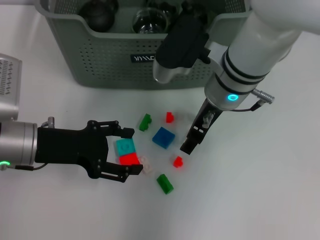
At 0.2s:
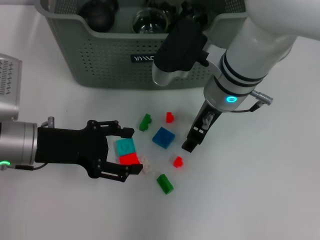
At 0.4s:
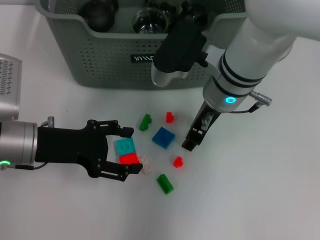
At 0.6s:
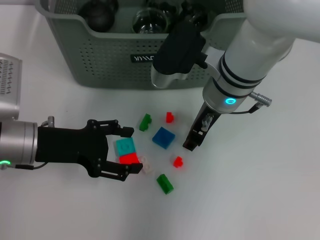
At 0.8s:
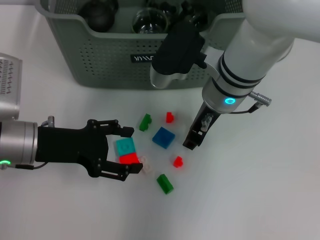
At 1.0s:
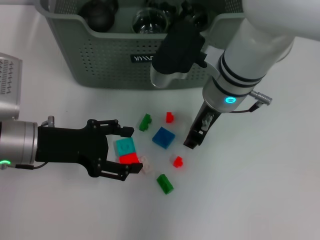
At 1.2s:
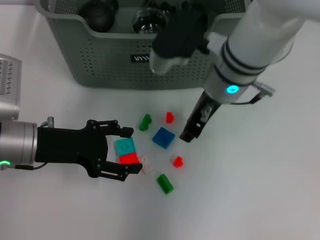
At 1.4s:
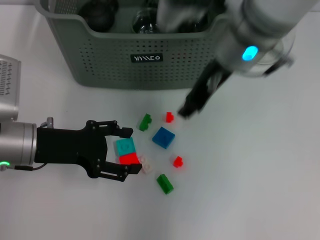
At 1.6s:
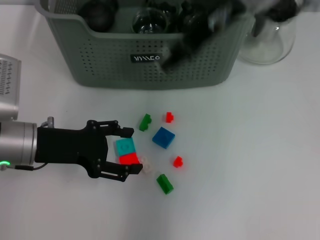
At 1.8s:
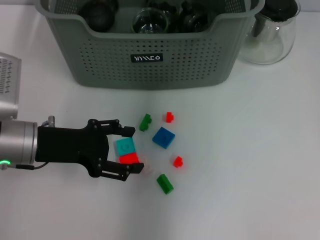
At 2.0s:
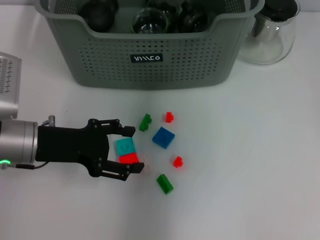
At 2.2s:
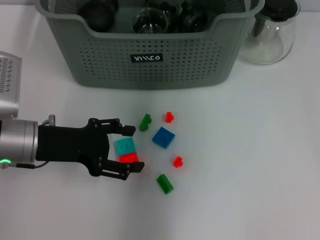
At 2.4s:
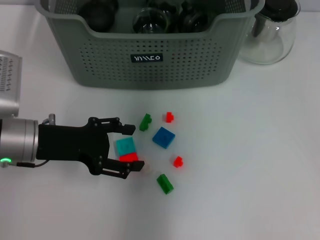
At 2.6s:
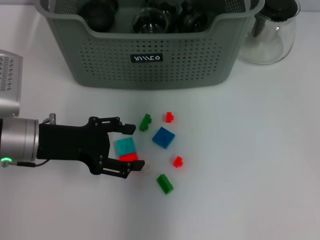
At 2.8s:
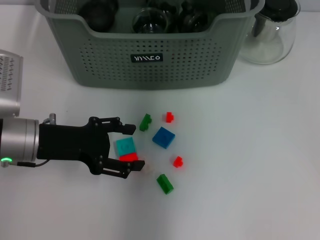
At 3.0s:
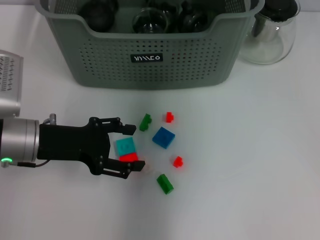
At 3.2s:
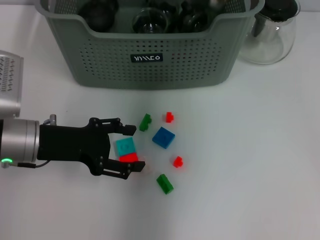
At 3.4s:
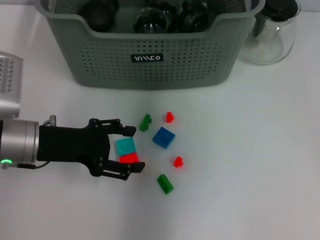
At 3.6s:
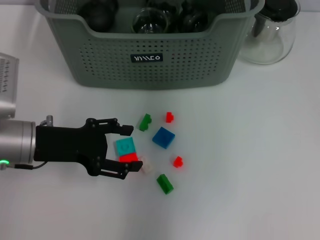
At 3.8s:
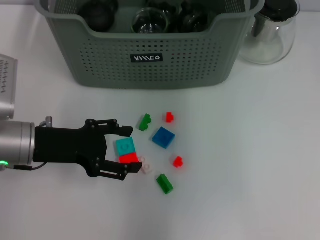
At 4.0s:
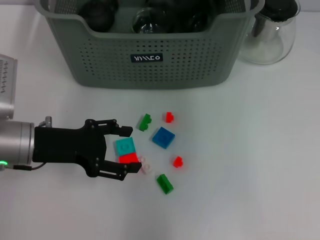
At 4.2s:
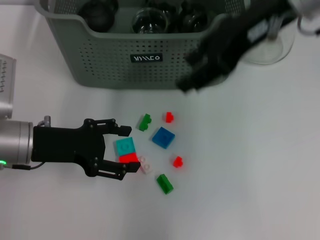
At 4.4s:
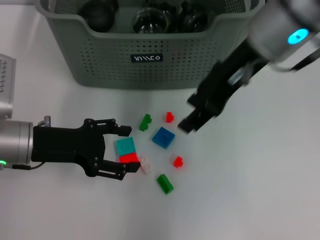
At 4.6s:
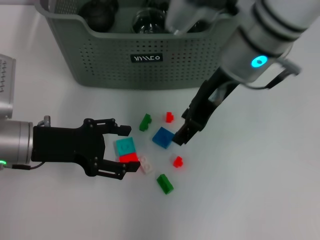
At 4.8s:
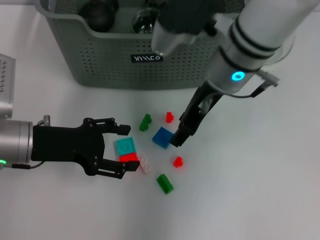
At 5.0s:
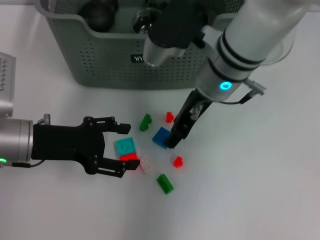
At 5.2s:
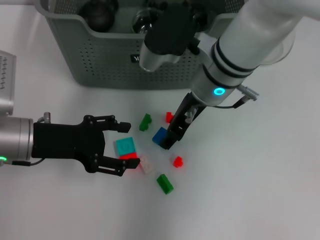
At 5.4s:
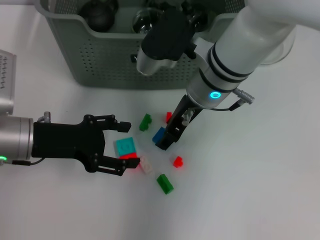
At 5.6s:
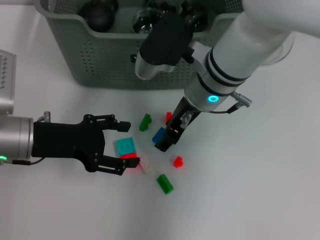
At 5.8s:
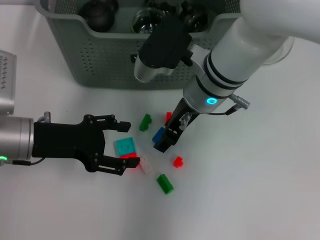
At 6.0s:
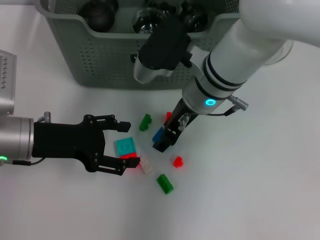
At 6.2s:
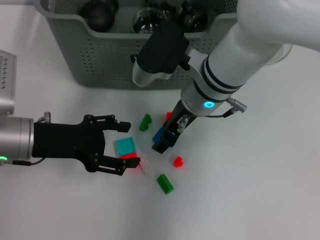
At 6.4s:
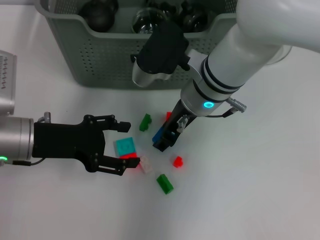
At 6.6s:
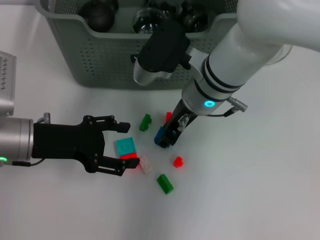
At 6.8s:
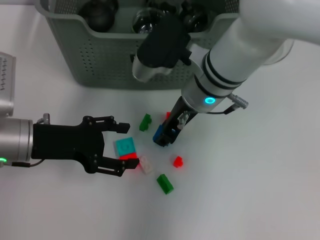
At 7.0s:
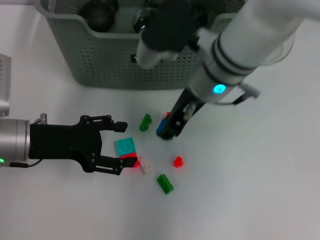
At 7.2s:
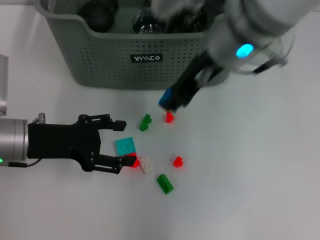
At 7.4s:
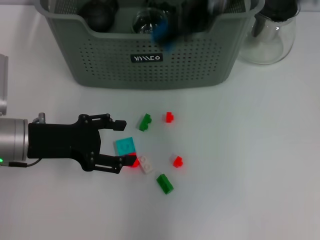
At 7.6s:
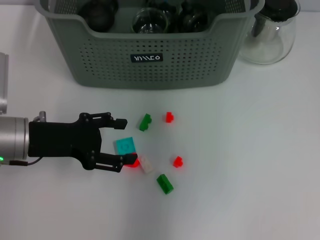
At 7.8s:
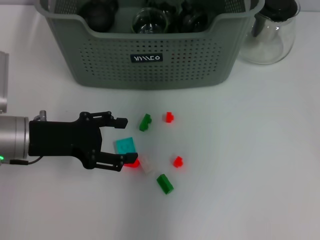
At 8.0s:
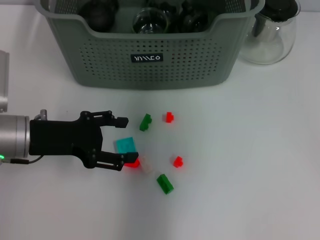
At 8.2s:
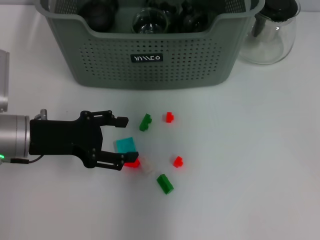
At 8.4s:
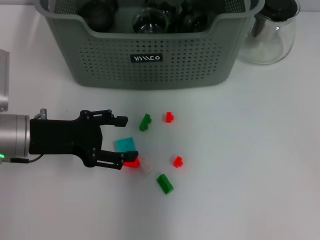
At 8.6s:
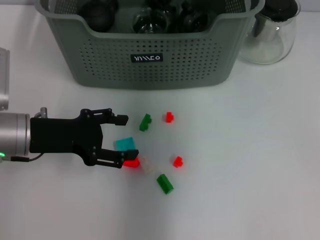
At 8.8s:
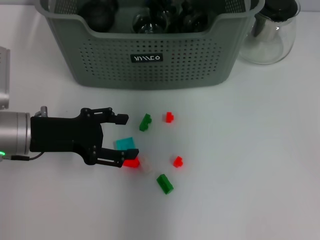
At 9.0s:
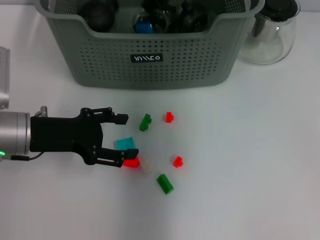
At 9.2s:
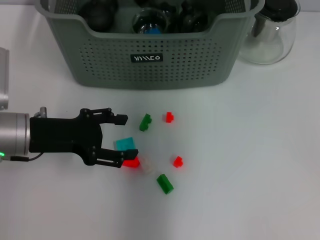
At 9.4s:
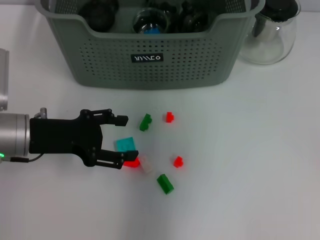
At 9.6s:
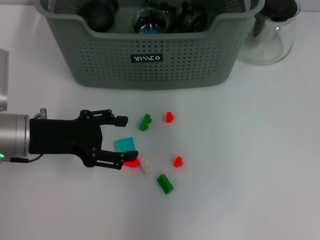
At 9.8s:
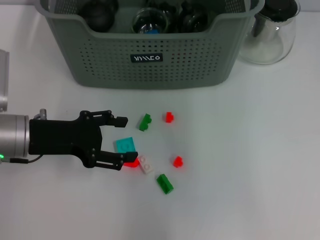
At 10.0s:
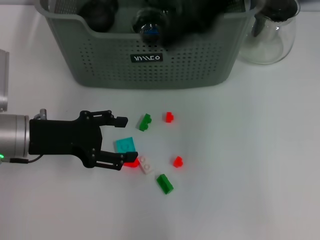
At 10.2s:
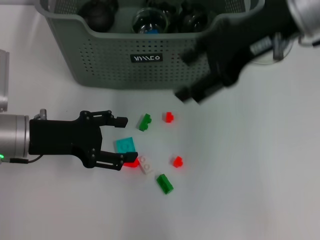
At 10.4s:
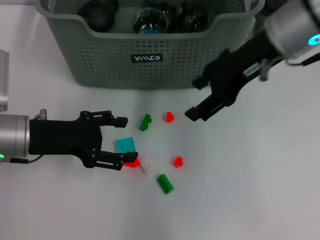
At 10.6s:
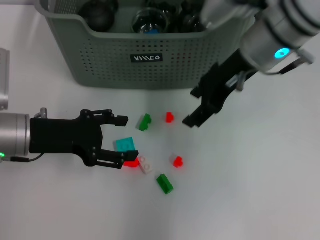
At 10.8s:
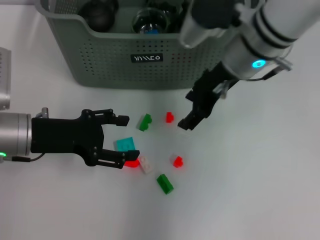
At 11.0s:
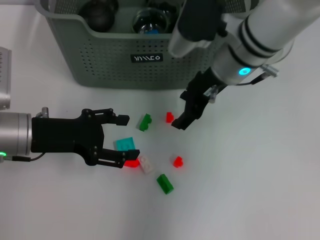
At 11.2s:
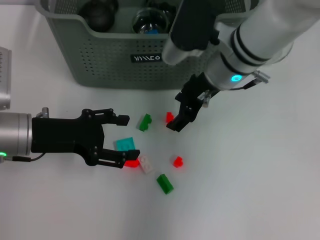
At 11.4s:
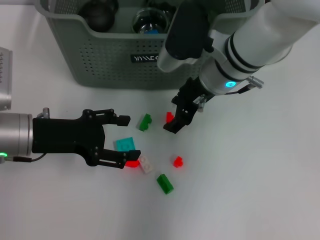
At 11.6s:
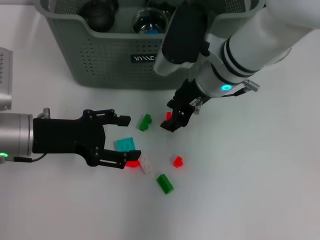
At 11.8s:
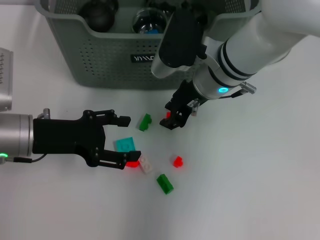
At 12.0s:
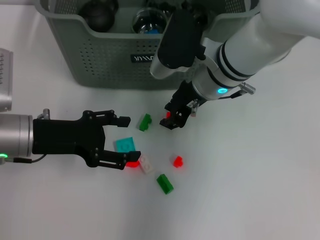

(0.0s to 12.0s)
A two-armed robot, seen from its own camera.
Task of the whole recording: pick up the teacup on the table and place it into the storage bin, pick up the block on the table and place it into the storage bin.
Step, 0.8s - 3.2s: Place the white block in the storage box with right gripper.
Step, 3.4s - 6.6s: Grasp the dark blue block with right gripper.
Step, 6.8s - 9.0s: Place the dark blue block in the storage box with right gripper.
0.0s - 1.6s: The right gripper shifts some 15 cm upward, and closes.
1.6s - 3.0s: The right gripper is displaced forward by approximately 10 cm.
3.0s - 4.4s: The right gripper heads backward, covering some 15 cm.
4.4s - 6.0s: The right gripper goes some 15 cm downward and to the left.
6.0s - 7.6s: The right gripper goes some 20 cm upward.
7.6s - 9.0s: The right gripper is displaced downward, forward and to the left by roughly 15 cm.
9.0s - 10.4s: The right gripper moves to the right and backward, some 15 cm, and opens.
10.4s - 12.0s: The right gripper travels downward and to the left by roughly 15 cm, and closes up.

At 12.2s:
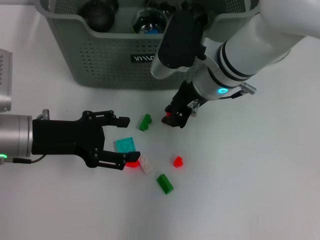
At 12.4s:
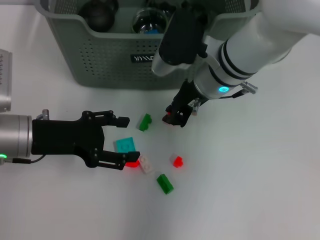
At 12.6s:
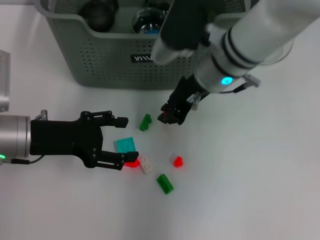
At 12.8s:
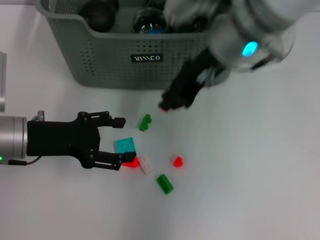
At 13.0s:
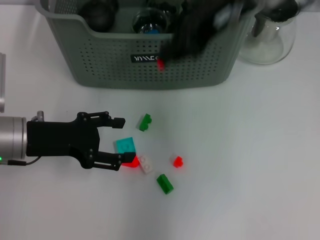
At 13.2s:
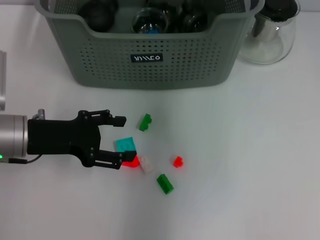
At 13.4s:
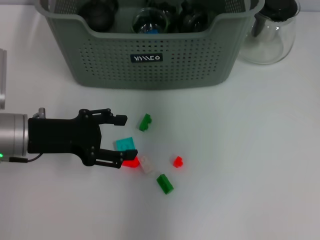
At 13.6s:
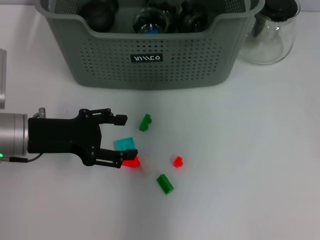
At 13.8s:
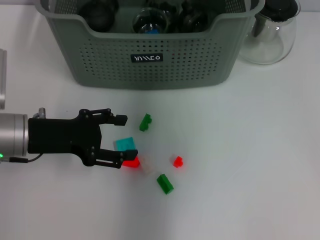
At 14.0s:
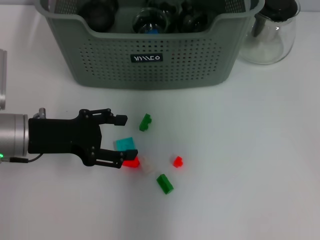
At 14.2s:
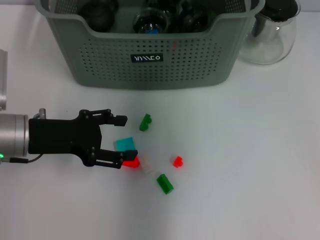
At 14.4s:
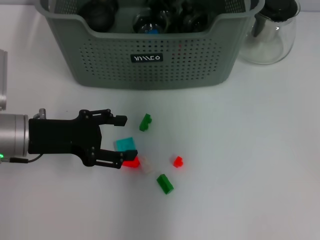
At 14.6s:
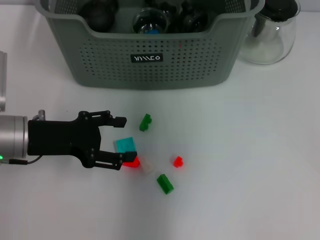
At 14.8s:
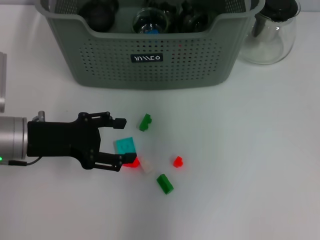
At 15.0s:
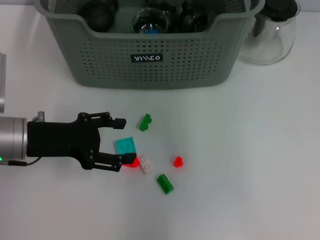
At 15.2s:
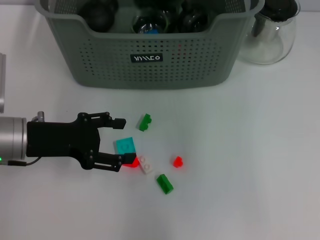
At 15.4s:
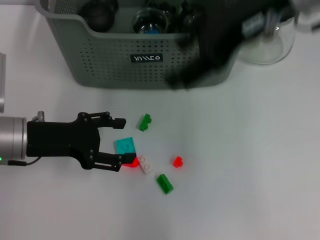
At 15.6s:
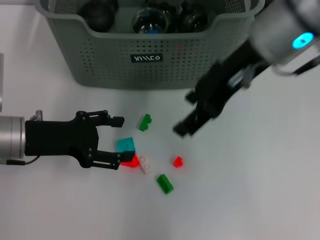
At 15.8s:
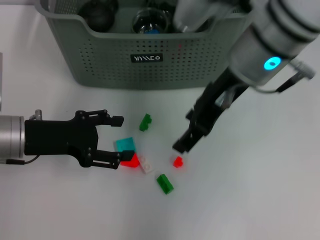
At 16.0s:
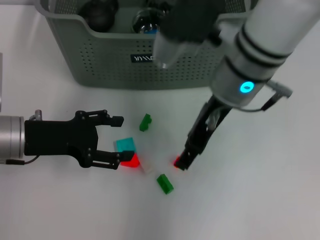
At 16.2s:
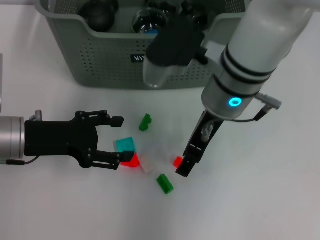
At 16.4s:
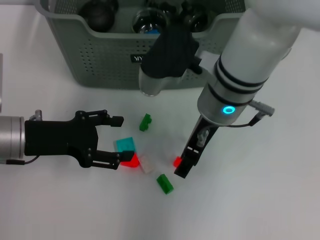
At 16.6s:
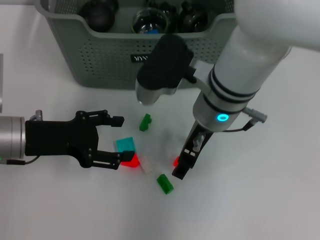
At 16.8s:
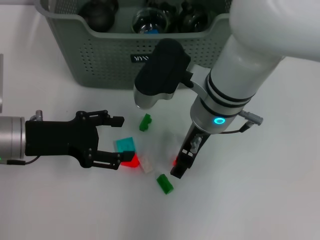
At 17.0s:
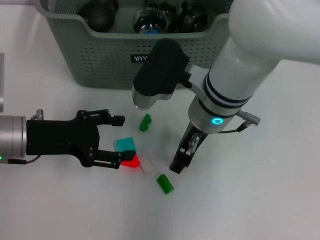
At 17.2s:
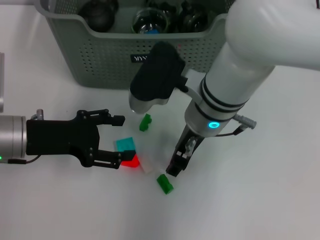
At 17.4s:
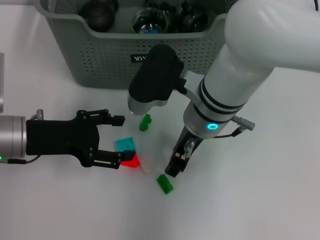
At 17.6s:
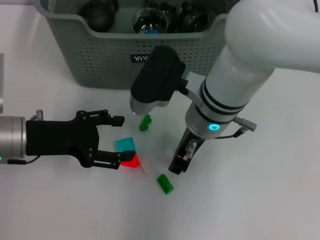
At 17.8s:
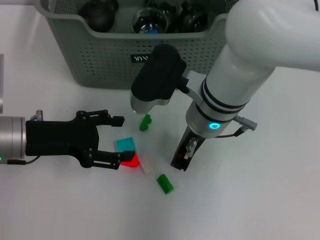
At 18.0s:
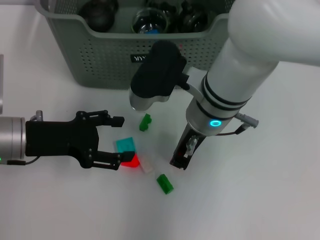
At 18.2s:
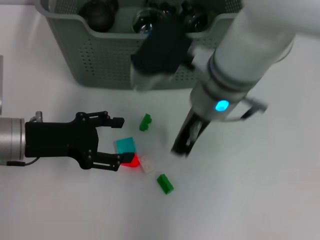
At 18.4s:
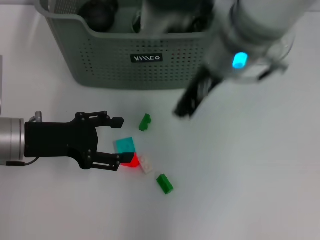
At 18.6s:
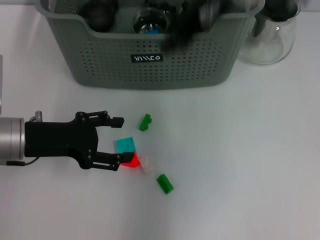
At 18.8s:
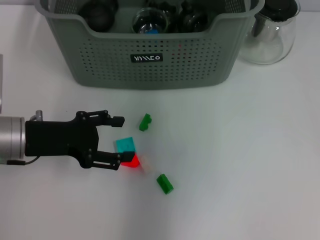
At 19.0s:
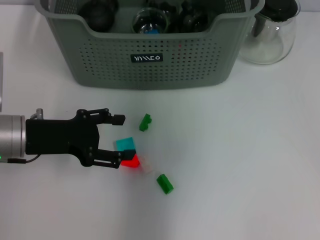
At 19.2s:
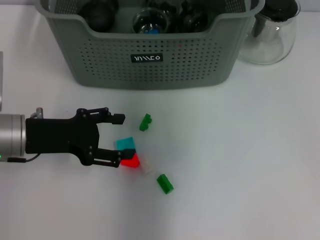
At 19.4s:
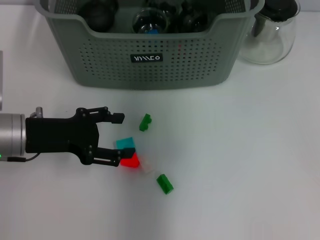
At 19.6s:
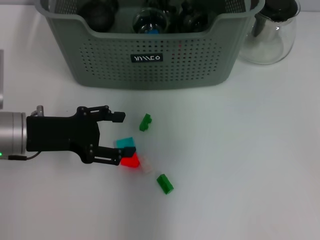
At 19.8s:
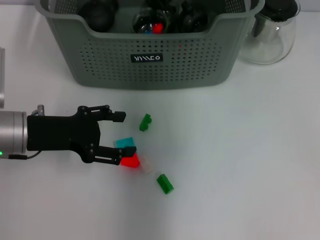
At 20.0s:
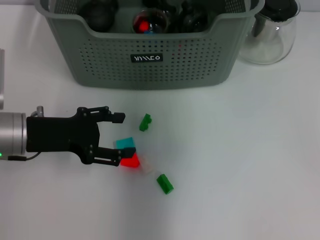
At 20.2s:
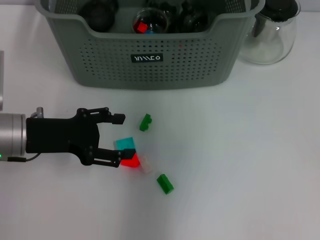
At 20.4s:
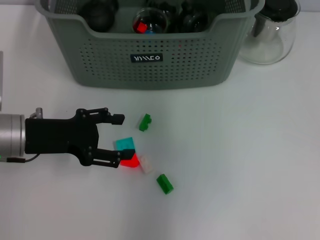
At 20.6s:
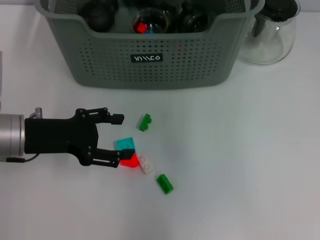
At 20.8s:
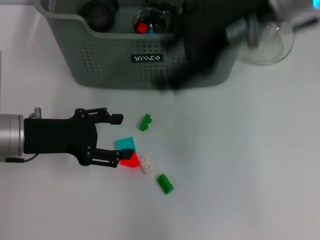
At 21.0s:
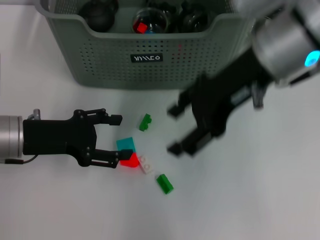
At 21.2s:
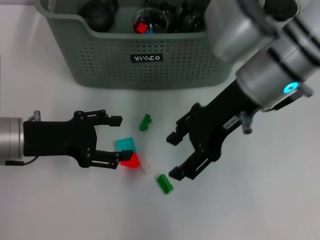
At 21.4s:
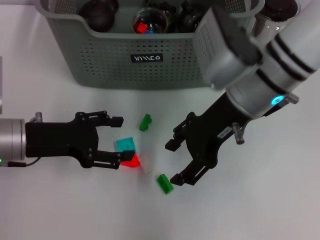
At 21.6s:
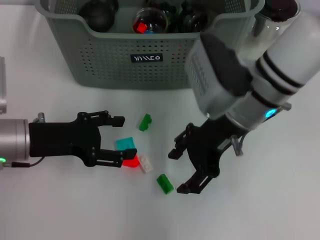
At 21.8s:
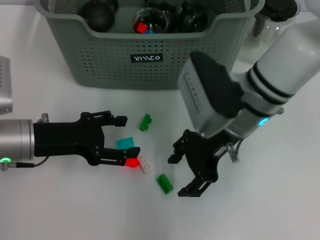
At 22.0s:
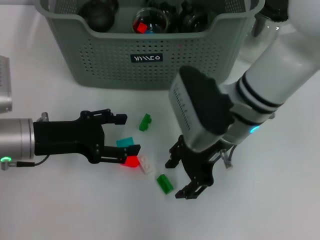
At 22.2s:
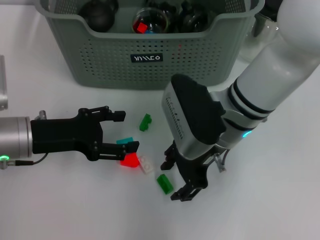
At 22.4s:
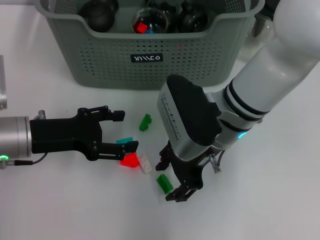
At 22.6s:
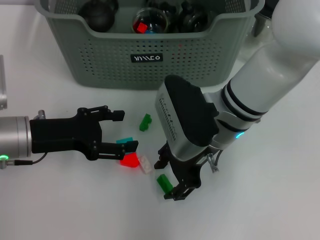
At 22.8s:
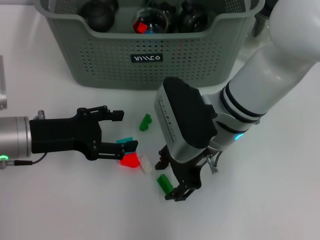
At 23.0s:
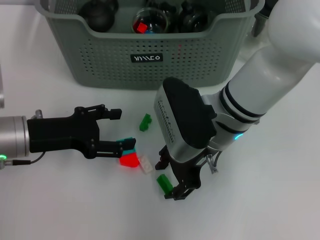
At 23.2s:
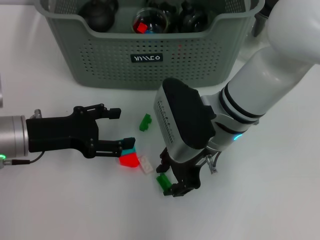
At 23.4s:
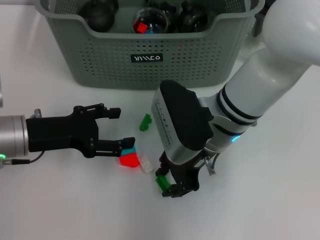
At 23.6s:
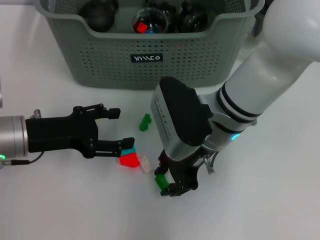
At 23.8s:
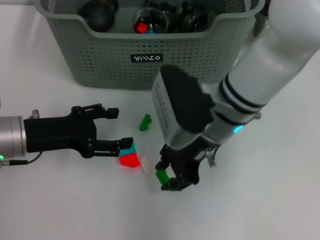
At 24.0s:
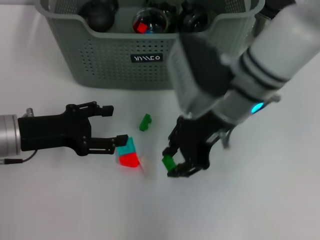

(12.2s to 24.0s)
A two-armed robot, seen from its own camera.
Task of the whole recording: pick up the teacup on the table and place it into the storage bin, pick up the block on the table and place it into the storage bin.
Step, 12.4s - 14.2s: Place the orange block in the storage box with right gripper.
Step, 14.4s - 17.8s: Grasp the orange block with right gripper.
Step, 18.0s - 19.8s: Place the orange block in the storage box with right gripper.
Step, 20.0s - 23.2s: Grasp the green block with right gripper.
12.2s - 13.6s: The right gripper is displaced upward by some 20 cm.
13.6s - 15.2s: The right gripper moves backward, some 10 cm, and opens.
15.2s - 16.6s: The right gripper travels downward by about 20 cm.
16.6s - 18.2s: The right gripper closes.
18.2s - 19.6s: The right gripper heads forward and upward, covering about 15 cm.
19.6s - 21.0s: The right gripper moves backward and to the right, about 15 cm, and opens its fingers.
21.0s - 22.6s: The right gripper travels downward and to the left by approximately 15 cm.
22.6s - 24.0s: The right gripper shifts by about 5 cm.
